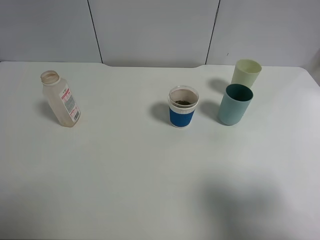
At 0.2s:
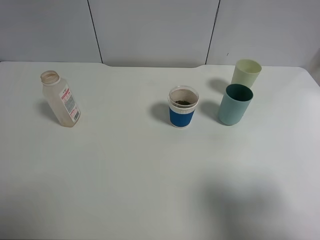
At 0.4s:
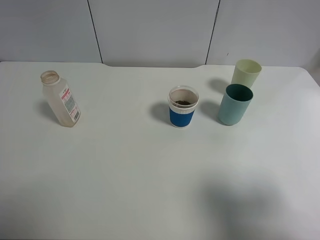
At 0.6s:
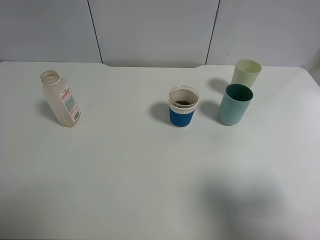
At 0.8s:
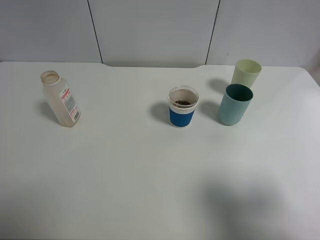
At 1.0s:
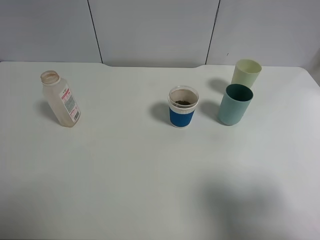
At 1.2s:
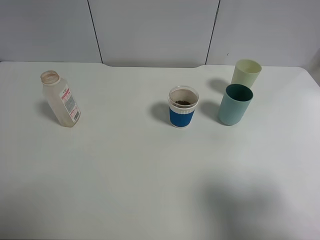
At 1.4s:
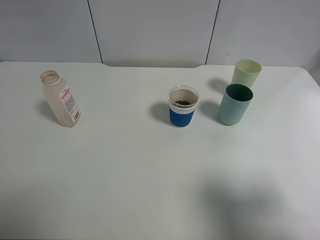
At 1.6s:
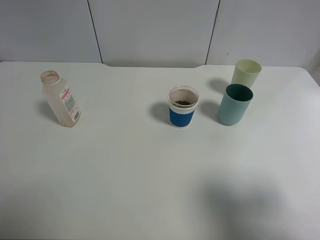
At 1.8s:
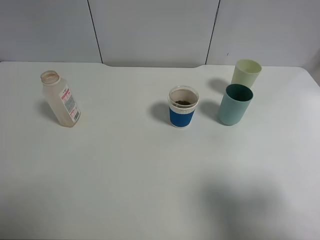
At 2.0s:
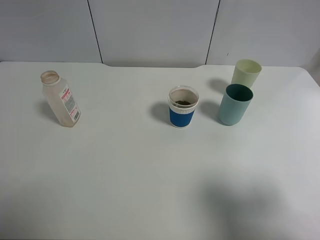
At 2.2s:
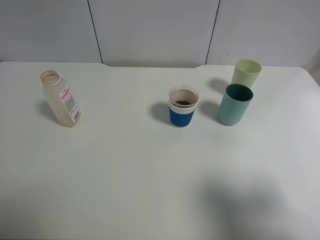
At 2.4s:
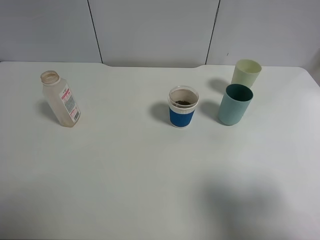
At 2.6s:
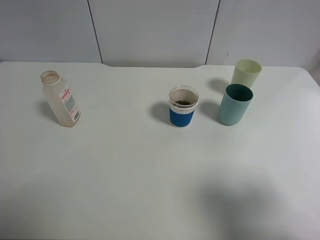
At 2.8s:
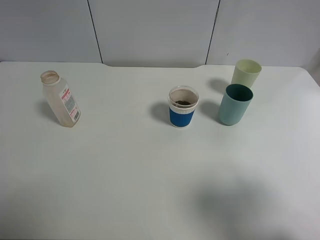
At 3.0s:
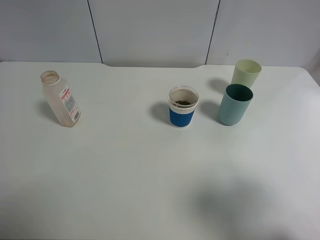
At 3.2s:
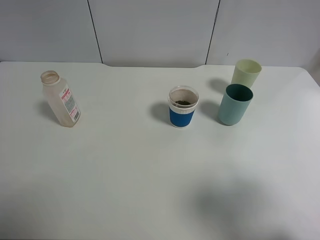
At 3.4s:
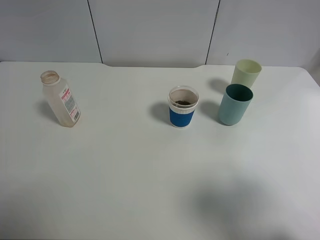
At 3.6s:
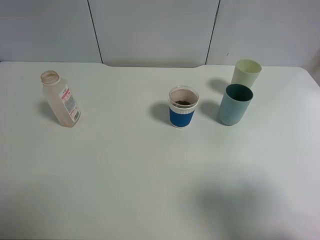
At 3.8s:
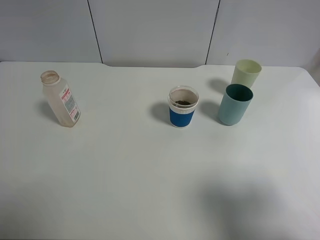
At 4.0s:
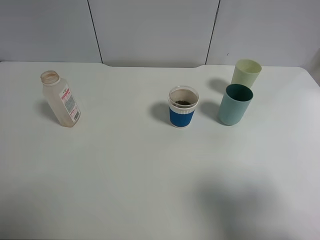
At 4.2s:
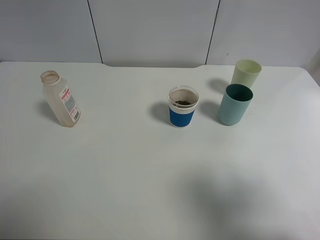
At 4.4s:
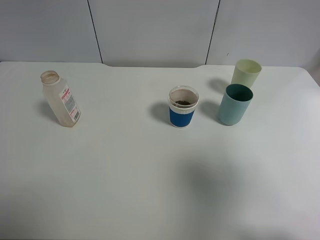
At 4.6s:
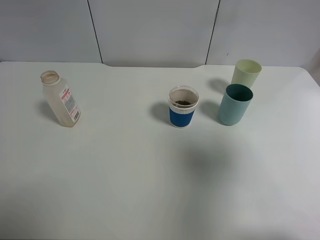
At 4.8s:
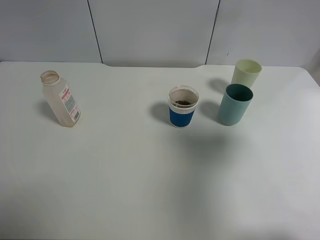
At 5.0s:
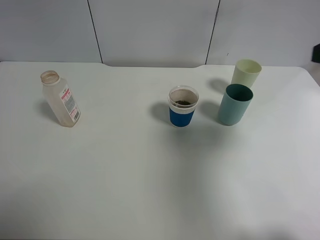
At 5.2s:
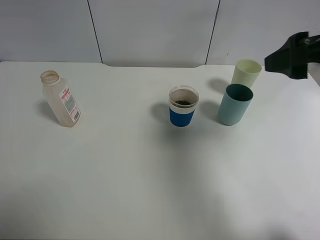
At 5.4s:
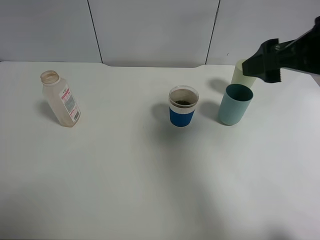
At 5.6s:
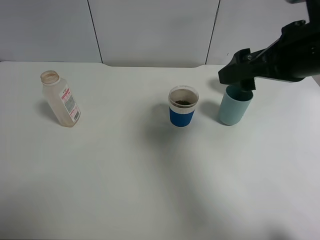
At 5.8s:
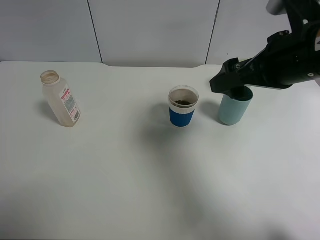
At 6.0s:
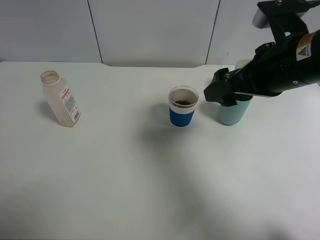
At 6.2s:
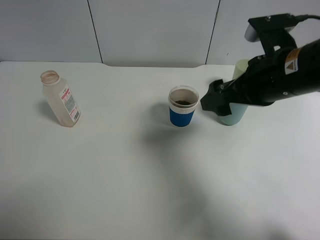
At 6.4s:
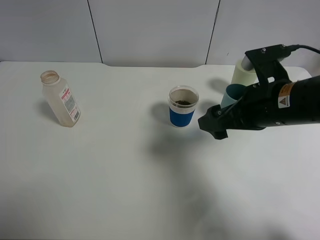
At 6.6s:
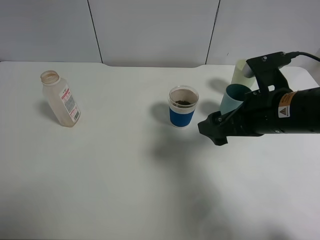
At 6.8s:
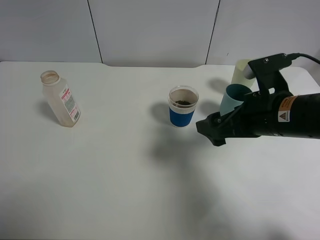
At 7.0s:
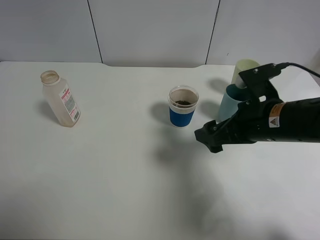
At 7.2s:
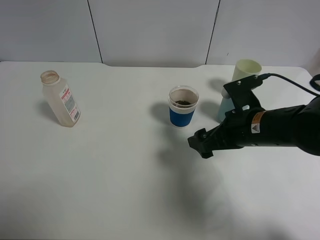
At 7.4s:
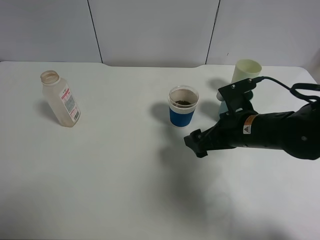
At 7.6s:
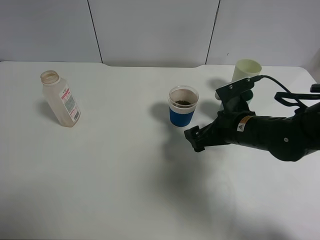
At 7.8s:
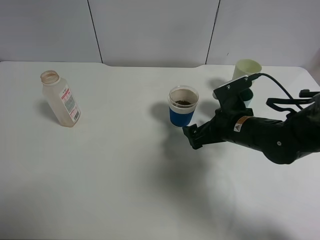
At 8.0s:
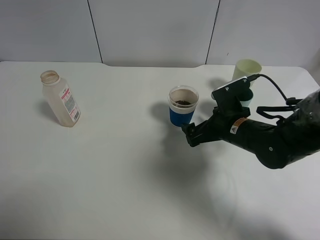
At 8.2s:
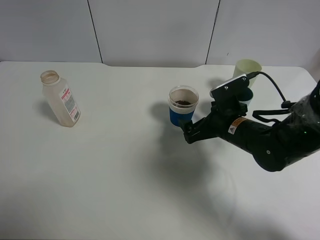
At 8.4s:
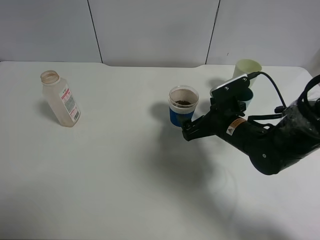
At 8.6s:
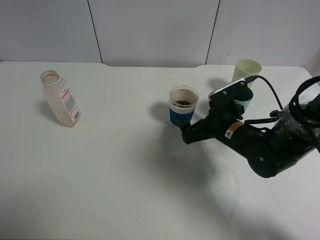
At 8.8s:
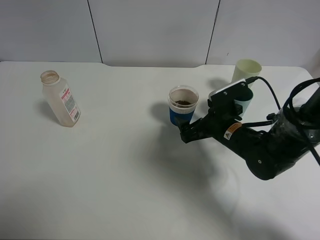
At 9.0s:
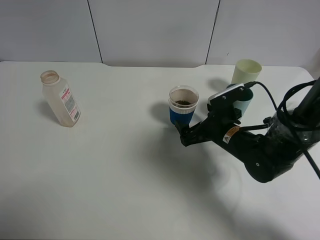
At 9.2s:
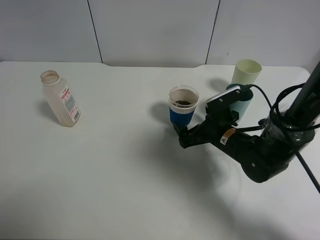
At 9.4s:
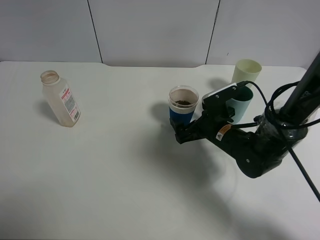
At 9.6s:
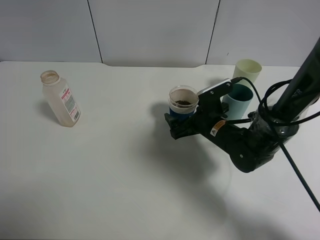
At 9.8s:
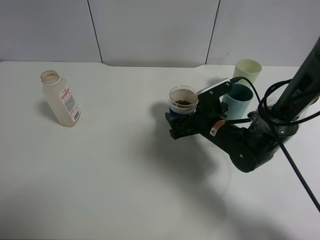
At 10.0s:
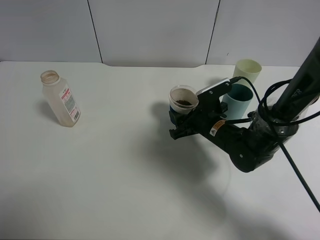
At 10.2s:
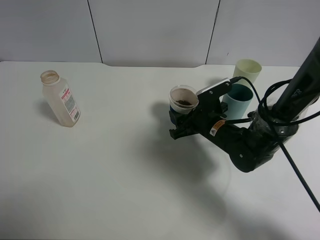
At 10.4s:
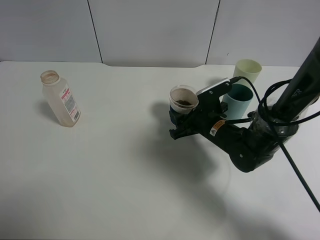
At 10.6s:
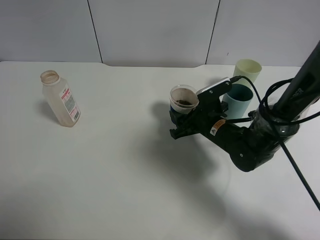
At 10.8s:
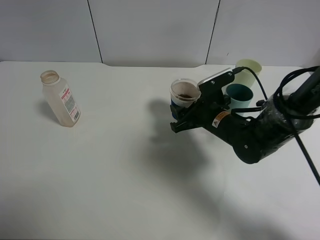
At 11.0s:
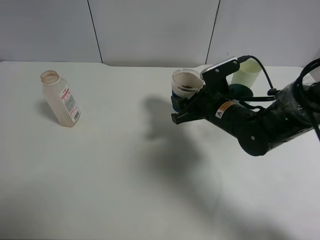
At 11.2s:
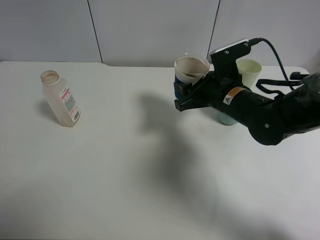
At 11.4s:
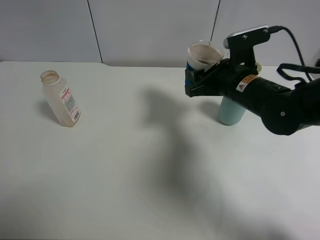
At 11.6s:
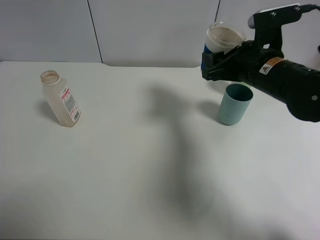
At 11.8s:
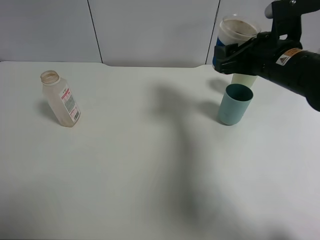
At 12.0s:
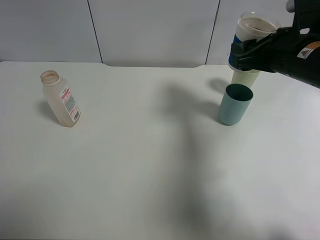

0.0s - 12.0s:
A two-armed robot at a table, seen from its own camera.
Task of the whole recording: use a clamp to hold the bottle of the drink, pour the beverage into a random cup, then clamp the cup containing the drink and pour the drink into another random cup.
Step, 0.0s - 11.0s: Pick up the paper cup with right gripper.
3.0s - 4.4s: The right gripper goes about 10 cm upward.
4.4s - 6.0s: The right gripper heads forward, to the left and downward, covering some 25 cm.
6.0s - 7.6s: The right gripper travels downward by roughly 15 cm.
7.6s - 9.0s: The right gripper shifts by approximately 5 cm.
9.0s - 10.4s: The right gripper closes up.
10.4s - 12.0s: The right gripper goes about 20 cm upward and to the right.

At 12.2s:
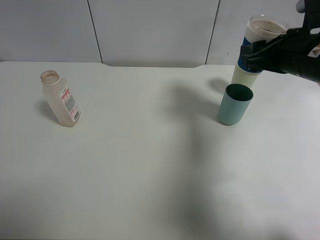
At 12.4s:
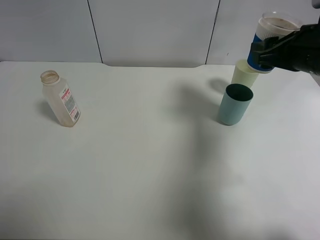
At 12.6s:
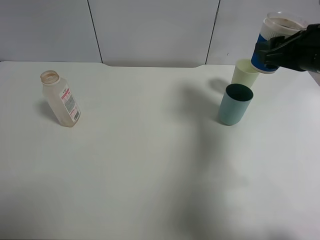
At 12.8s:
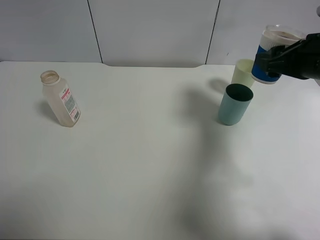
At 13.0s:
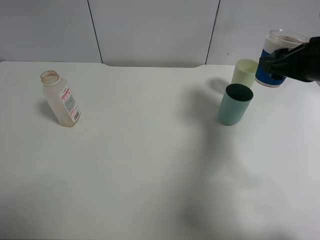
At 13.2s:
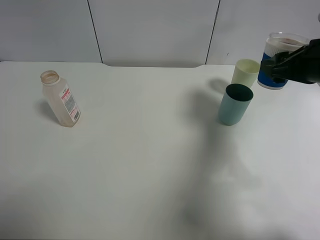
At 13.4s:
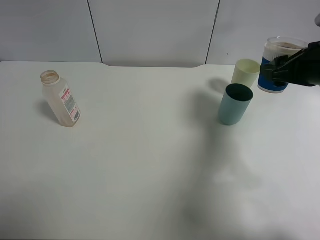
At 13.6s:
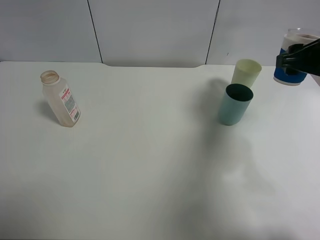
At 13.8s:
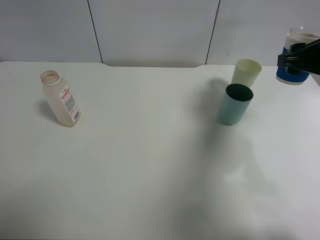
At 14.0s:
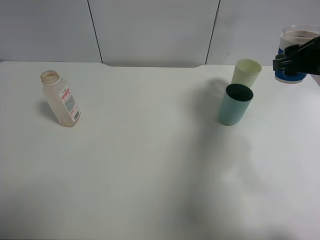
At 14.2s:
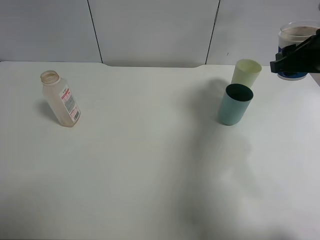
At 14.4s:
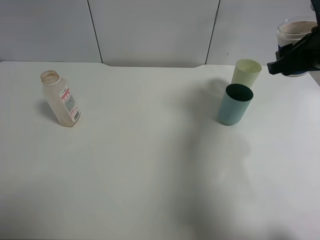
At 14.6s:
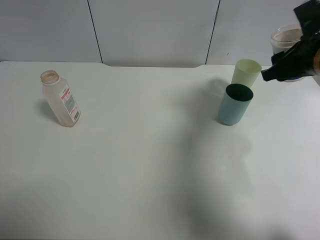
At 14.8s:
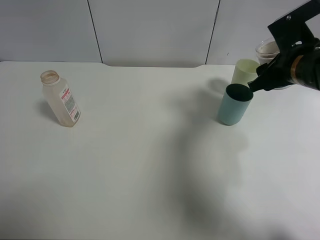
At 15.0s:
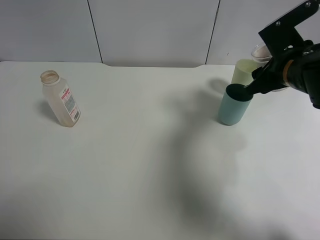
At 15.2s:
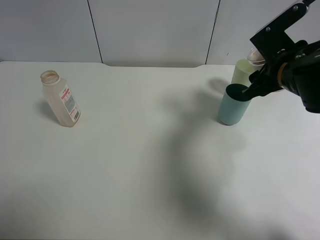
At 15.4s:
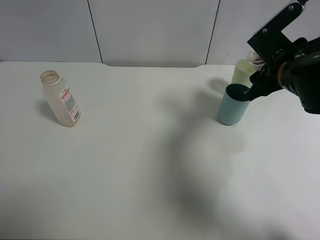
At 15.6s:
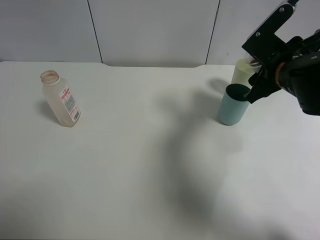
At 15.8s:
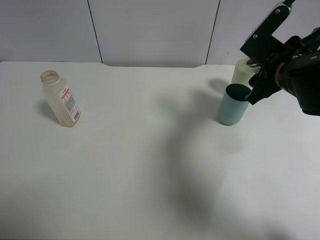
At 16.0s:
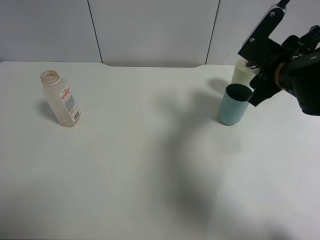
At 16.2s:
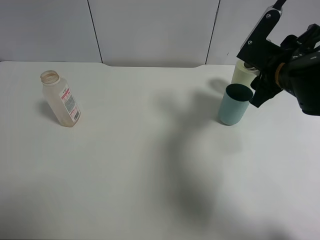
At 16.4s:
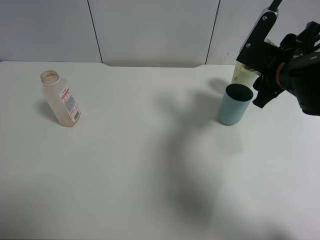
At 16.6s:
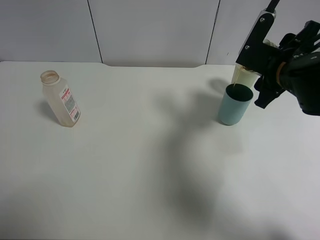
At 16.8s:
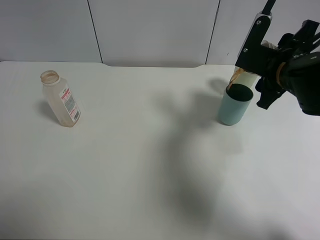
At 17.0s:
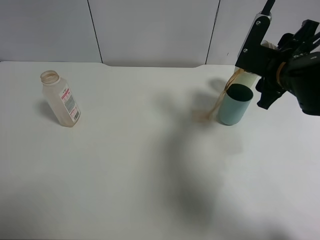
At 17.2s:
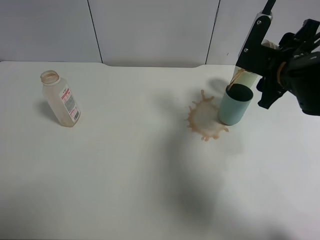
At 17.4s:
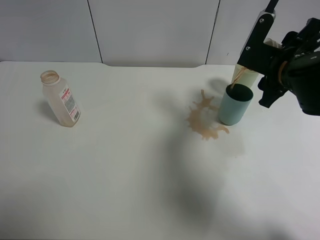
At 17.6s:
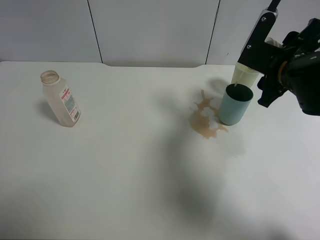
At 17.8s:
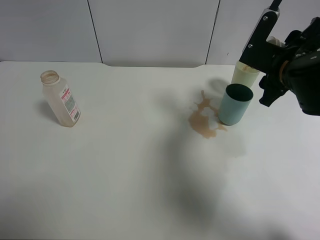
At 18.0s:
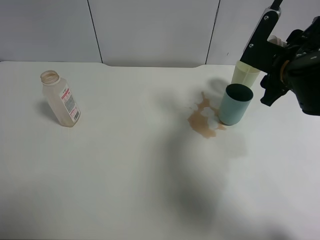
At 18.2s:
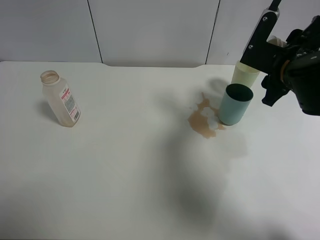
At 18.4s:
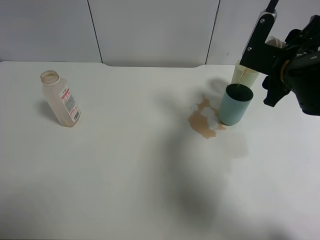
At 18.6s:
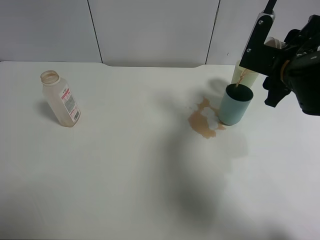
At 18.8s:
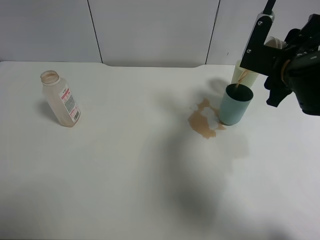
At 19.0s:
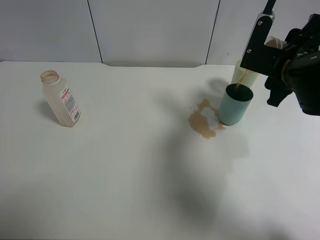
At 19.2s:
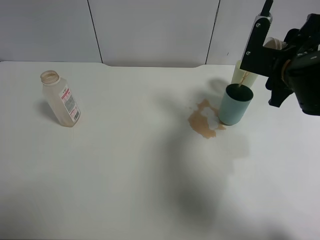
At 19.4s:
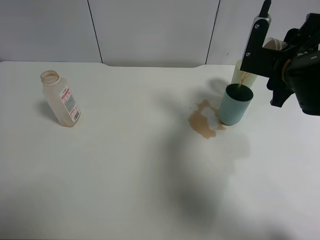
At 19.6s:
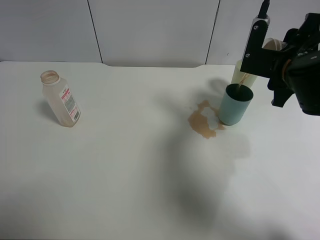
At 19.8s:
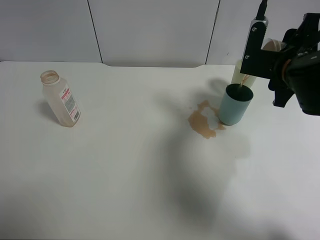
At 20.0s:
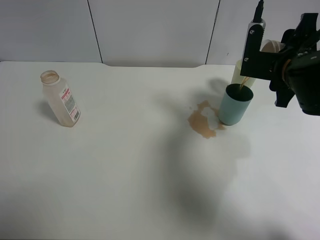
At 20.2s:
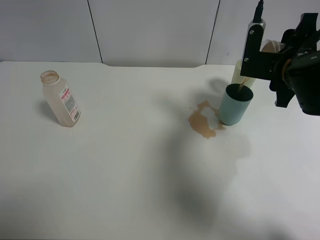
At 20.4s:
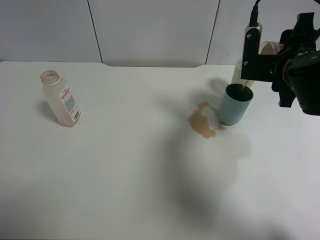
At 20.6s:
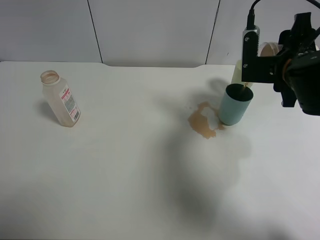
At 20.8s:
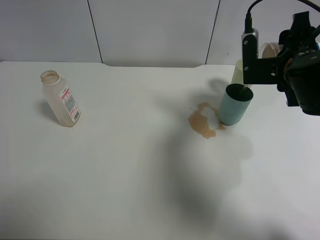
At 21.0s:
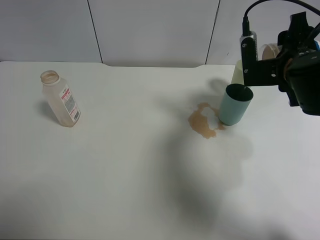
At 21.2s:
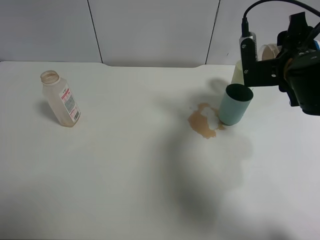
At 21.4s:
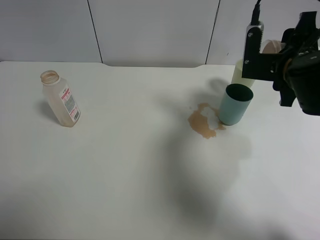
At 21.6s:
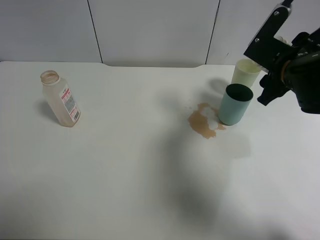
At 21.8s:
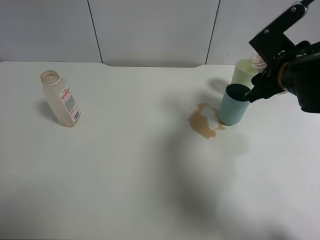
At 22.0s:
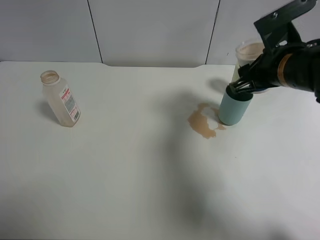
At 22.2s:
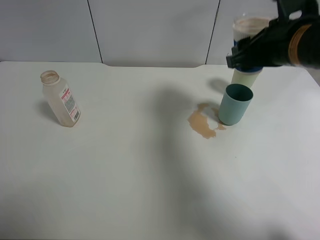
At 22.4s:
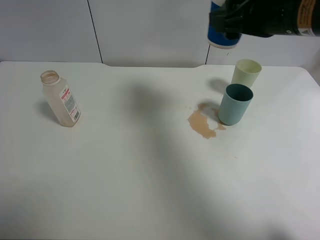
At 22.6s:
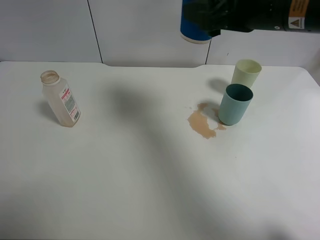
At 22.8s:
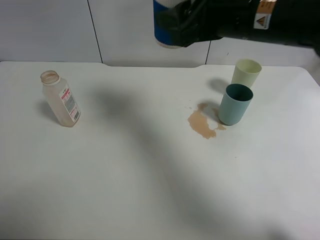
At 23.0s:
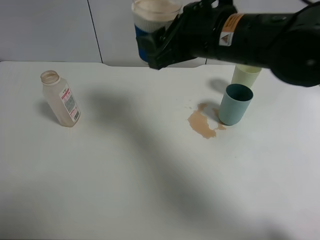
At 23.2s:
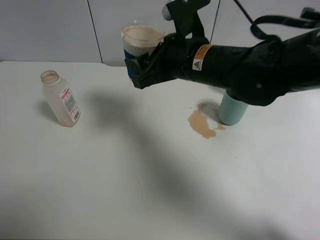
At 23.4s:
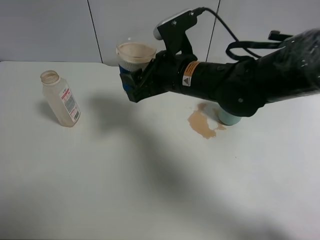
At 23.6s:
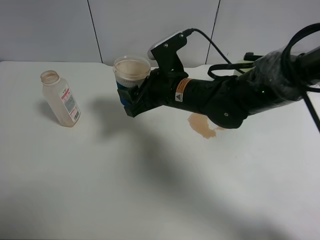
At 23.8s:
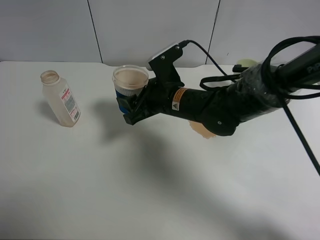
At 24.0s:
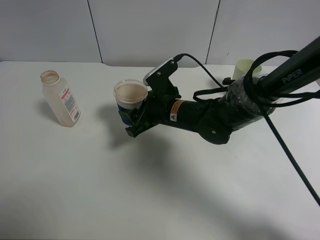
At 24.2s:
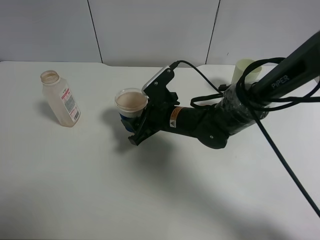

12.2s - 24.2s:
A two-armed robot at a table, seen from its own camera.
Task of the whole recording: use a clamp to hold the bottle of the drink, pour the beverage into a random cup, then clamp the cup containing the drink and pour the drink into another random cup.
Step, 12.2s - 21.6s: Pour the drink into the blue plastic cup with right gripper.
12.2s - 13.8s: The right gripper moves to the right, about 5 cm.
13.8s - 15.2s: The right gripper is displaced to the left by about 5 cm.
16.6s - 19.8s: There are only small adjustments of the grippers.
19.8s - 21.2s: There are only small adjustments of the grippers.
21.2s - 22.6s: The right gripper travels upward and to the left by about 15 cm.
22.6s - 24.2s: The right gripper travels downward and to the left by some 25 cm.
